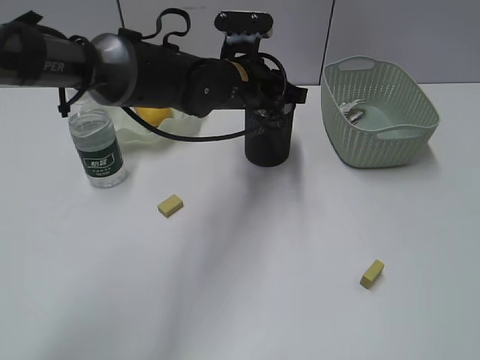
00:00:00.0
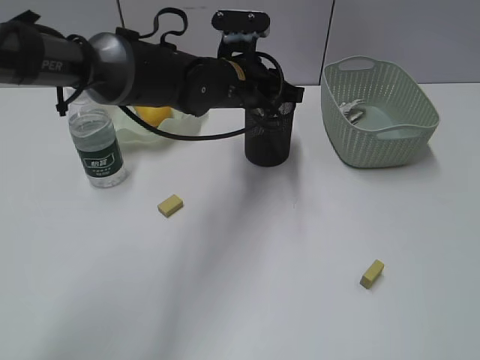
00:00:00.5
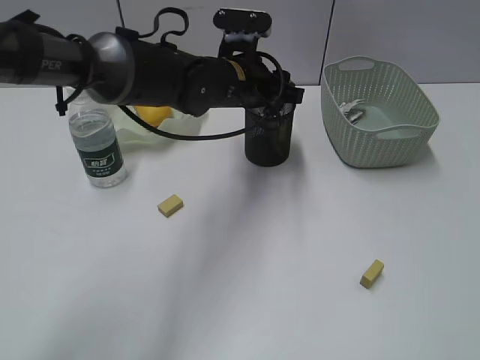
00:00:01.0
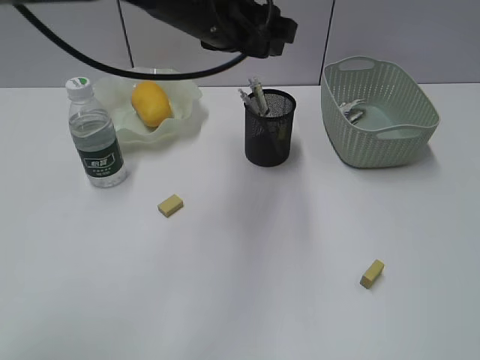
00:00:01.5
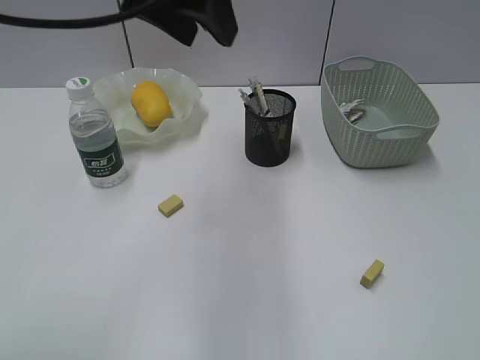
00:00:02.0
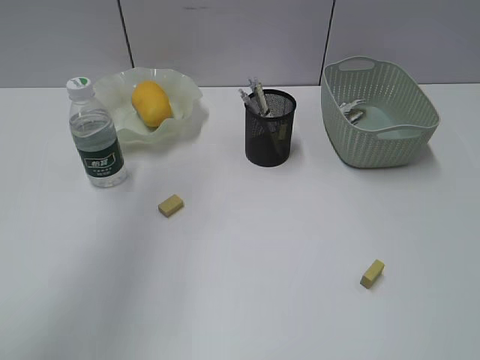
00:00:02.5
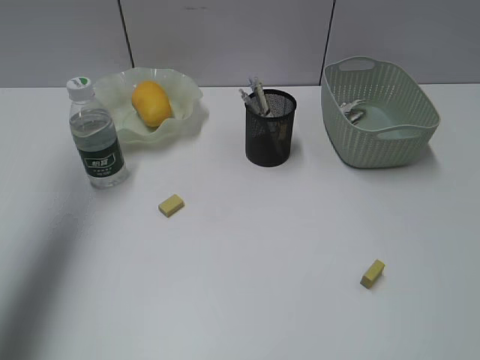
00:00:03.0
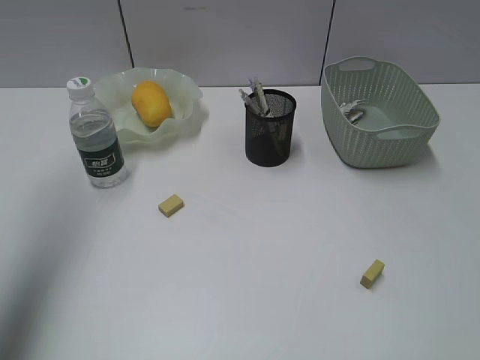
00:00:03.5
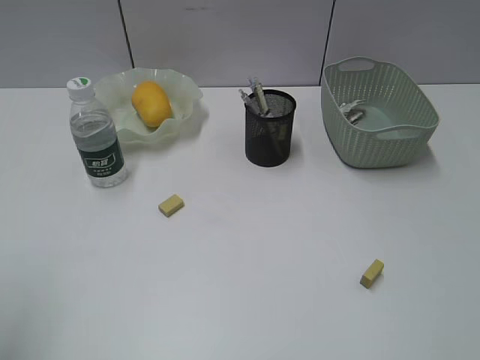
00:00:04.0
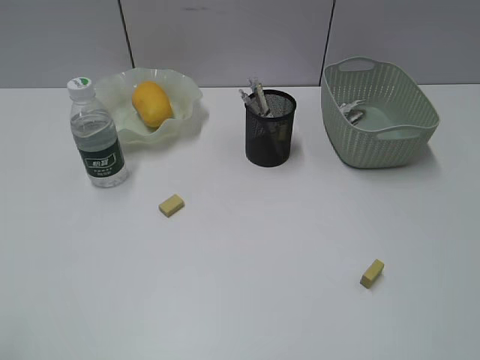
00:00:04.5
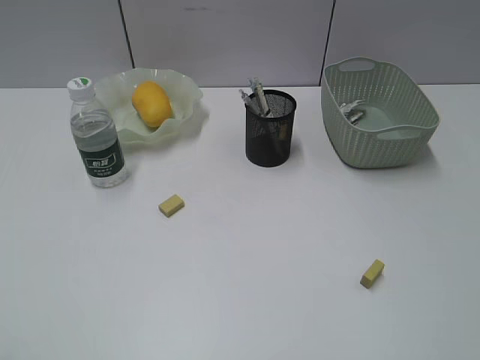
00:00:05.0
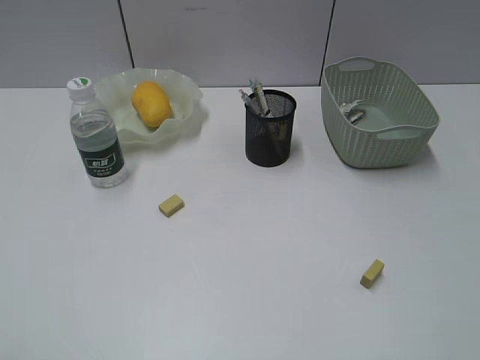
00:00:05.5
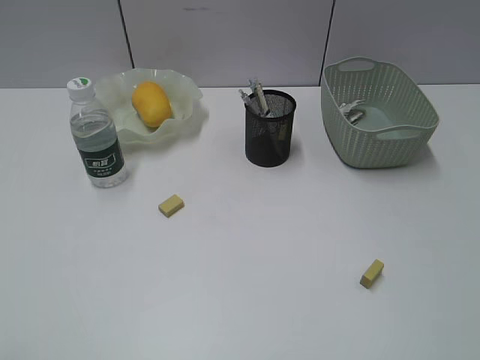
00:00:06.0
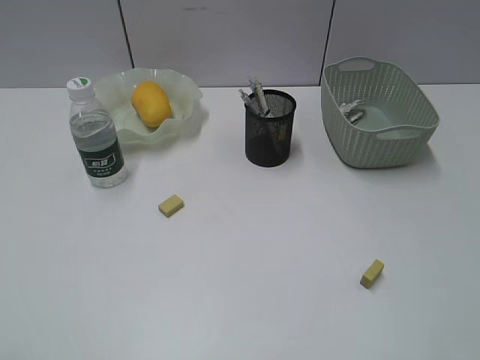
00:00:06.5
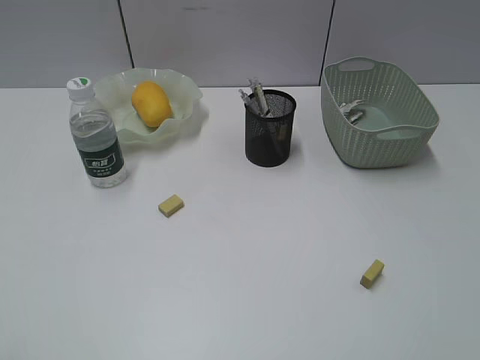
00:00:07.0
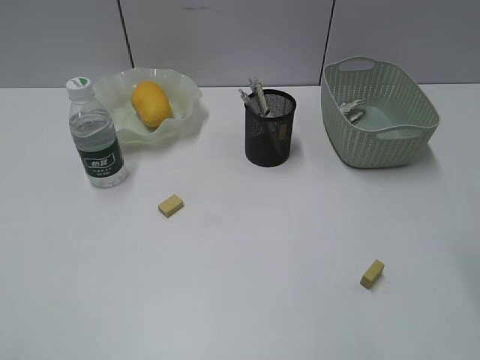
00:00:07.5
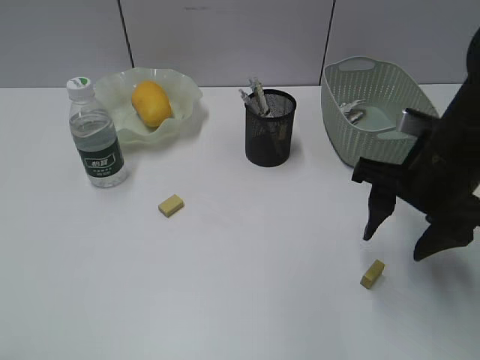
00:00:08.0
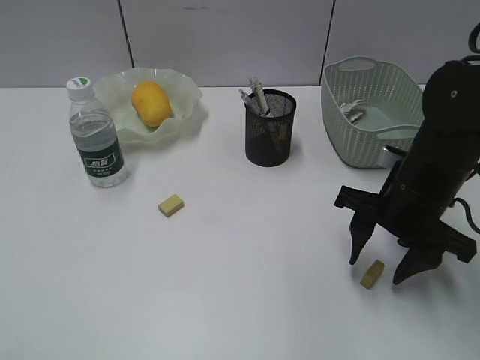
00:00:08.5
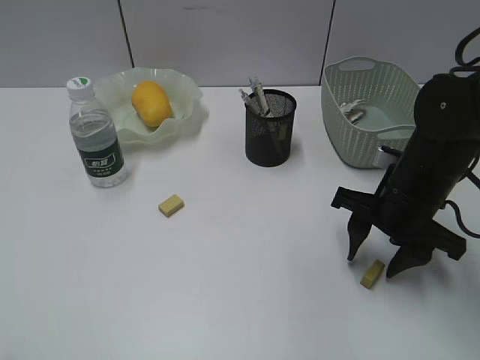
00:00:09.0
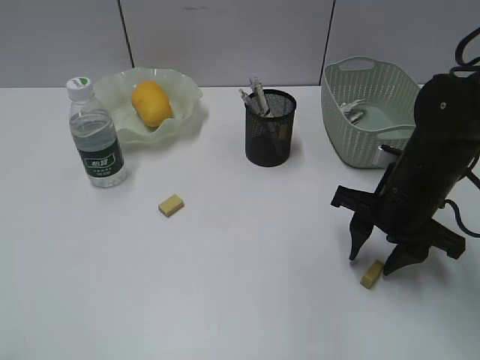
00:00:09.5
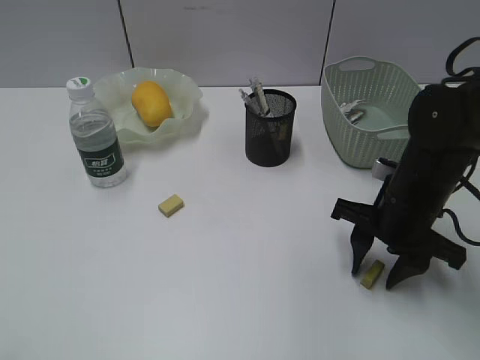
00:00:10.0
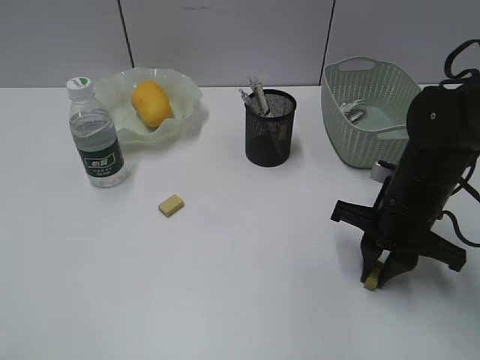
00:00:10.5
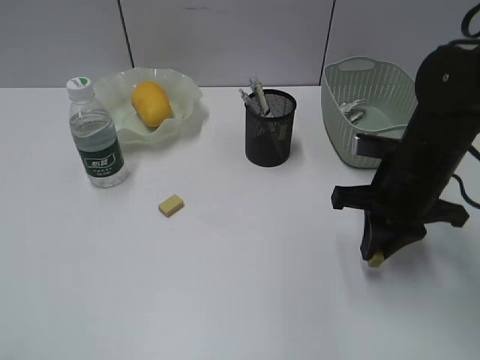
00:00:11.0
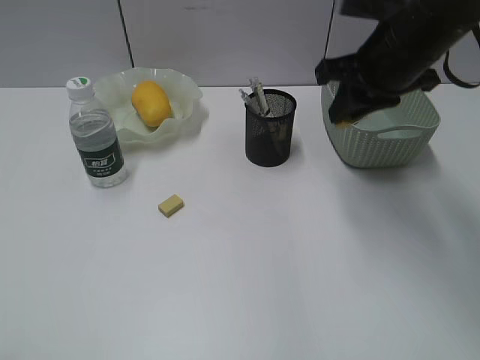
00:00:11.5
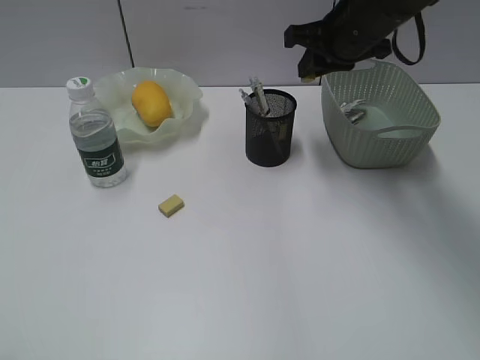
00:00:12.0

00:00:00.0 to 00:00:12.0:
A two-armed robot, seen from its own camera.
Step, 00:00:01.5 to 00:00:10.5: Grasp the eraser with right gripper.
00:00:00.0 to 00:00:02.0: The left gripper moves upward and backward, roughly 20 cm, and opens up.
00:00:02.0 to 00:00:04.0: The left gripper moves to the left and backward, approximately 30 cm.
00:00:06.0 to 00:00:08.0: The right gripper travels forward by about 25 cm.
00:00:08.0 to 00:00:10.0: The right gripper goes roughly 10 cm downward.
00:00:10.0 to 00:00:12.0: The right gripper heads forward and upward, covering roughly 20 cm, and closes its fingers.

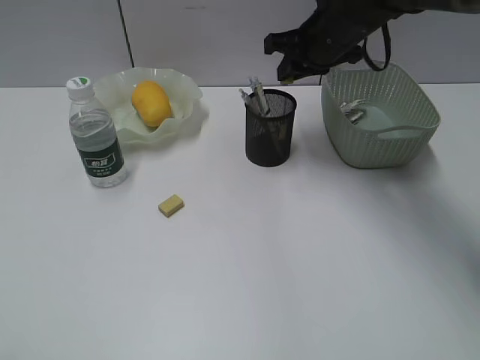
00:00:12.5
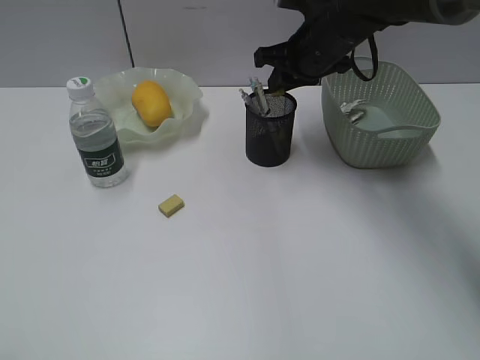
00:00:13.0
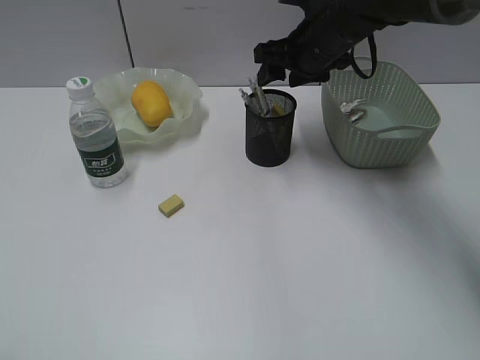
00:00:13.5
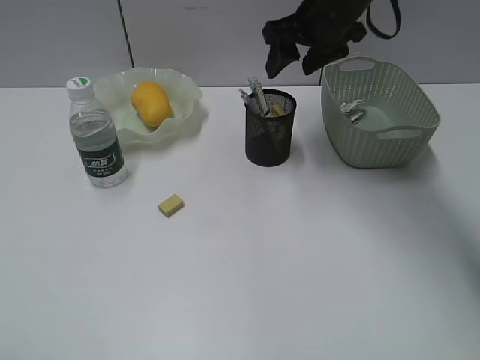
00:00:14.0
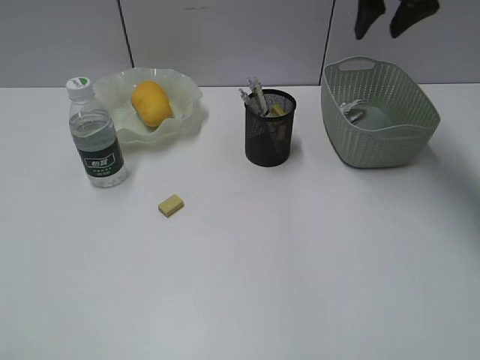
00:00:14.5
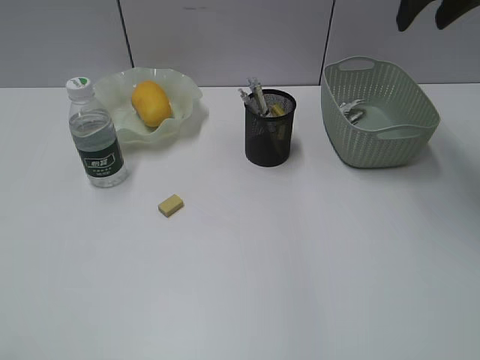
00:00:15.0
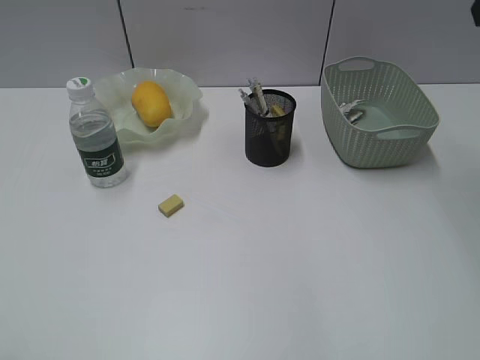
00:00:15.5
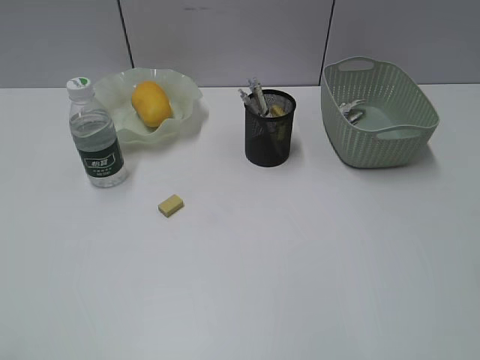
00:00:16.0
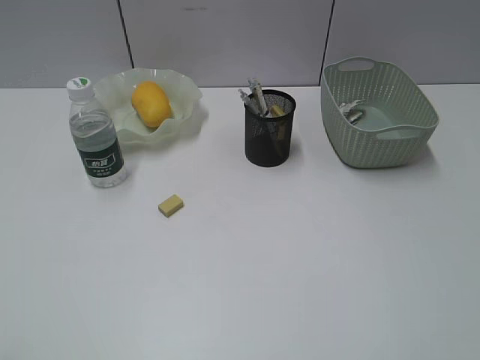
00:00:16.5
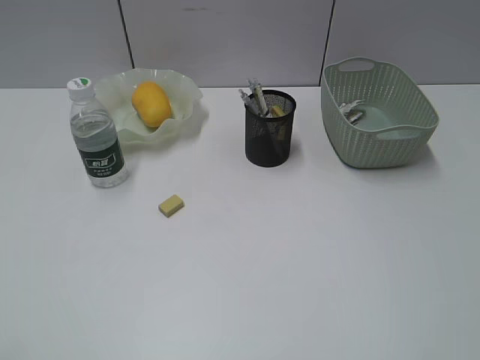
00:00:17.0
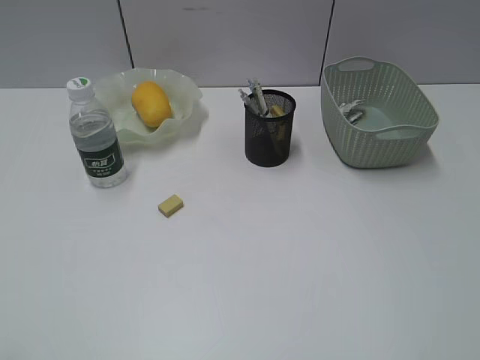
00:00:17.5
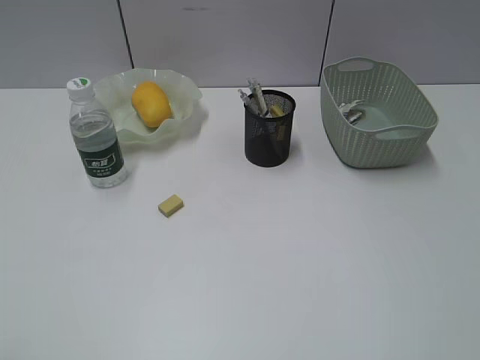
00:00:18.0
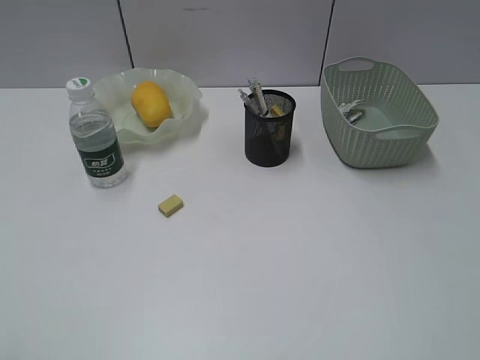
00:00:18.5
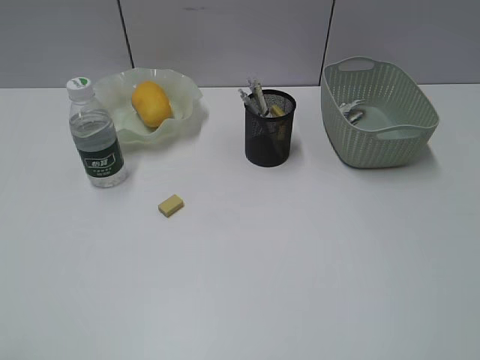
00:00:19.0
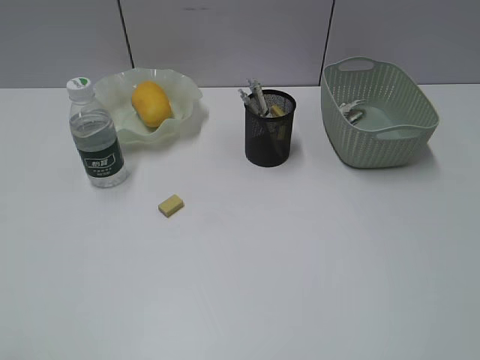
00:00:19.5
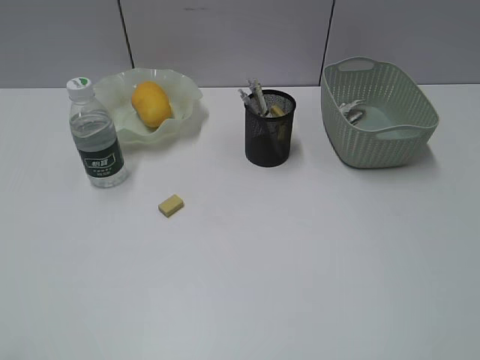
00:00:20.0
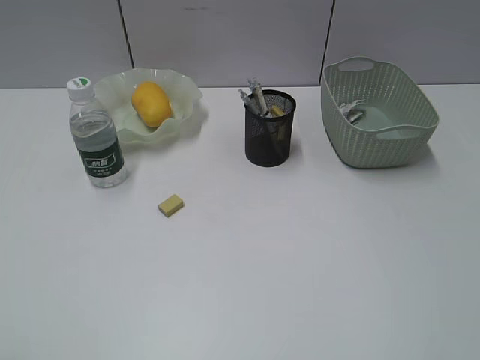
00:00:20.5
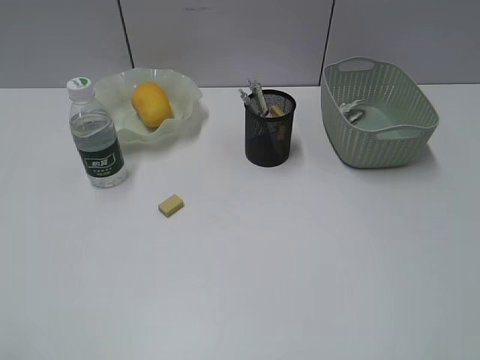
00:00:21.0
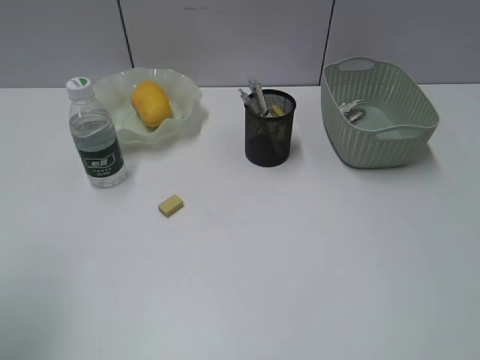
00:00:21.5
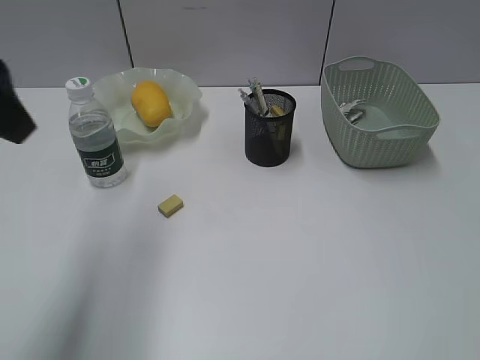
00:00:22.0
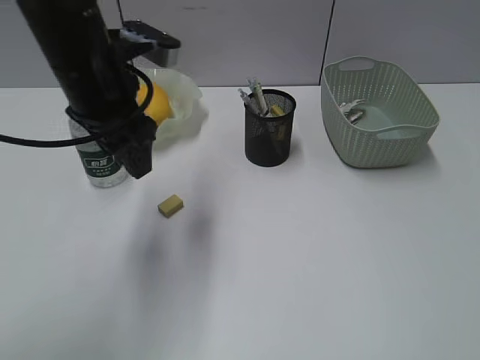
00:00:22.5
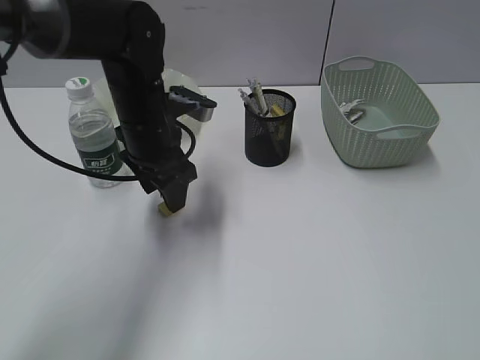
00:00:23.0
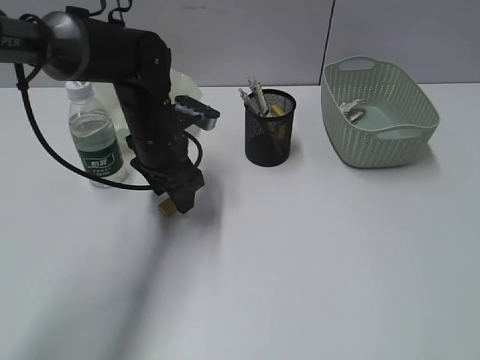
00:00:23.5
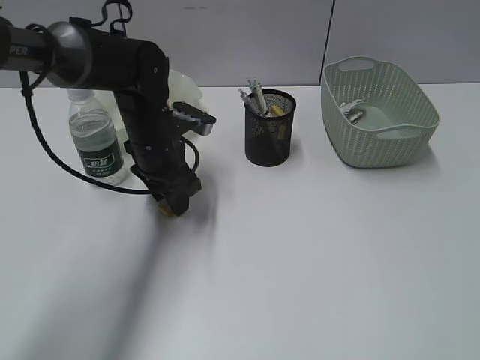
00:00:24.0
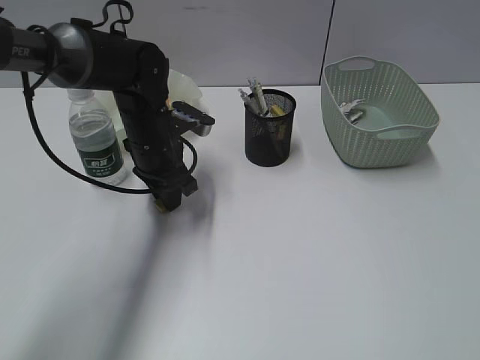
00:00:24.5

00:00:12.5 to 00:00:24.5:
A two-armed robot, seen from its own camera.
00:00:12.5 to 00:00:14.5: The right gripper travels upward and to the right by some 10 cm, and opens up.
00:00:14.5 to 00:00:16.5: The right gripper is displaced backward by roughly 40 cm.
00:00:20.5 to 00:00:22.5: The left gripper goes some 35 cm forward and to the right.
00:00:22.5 to 00:00:24.5: The left gripper heads downward and forward, covering approximately 15 cm, and closes.

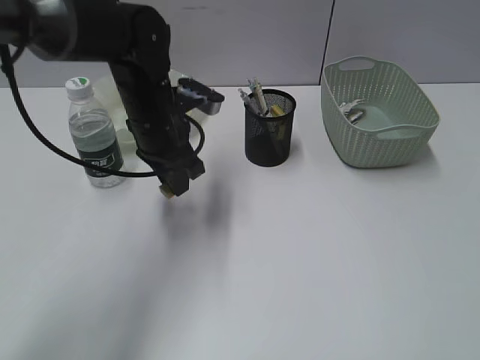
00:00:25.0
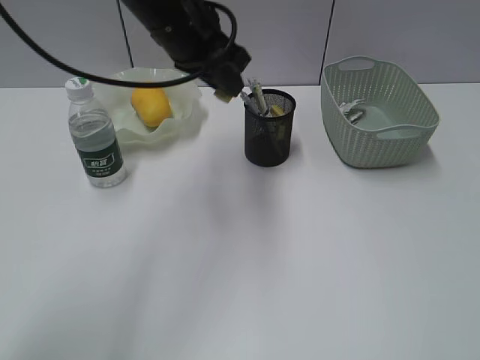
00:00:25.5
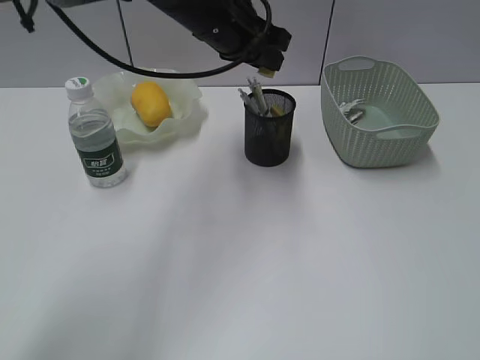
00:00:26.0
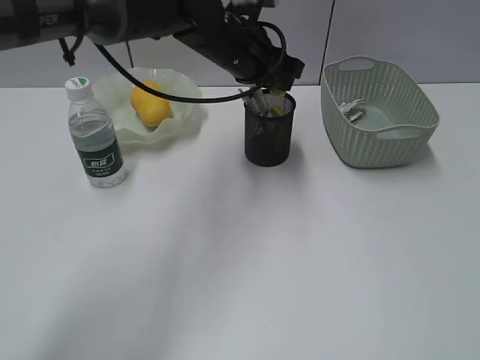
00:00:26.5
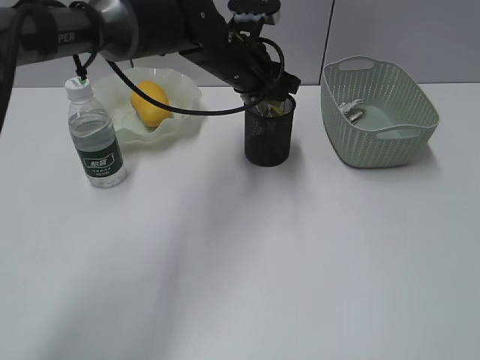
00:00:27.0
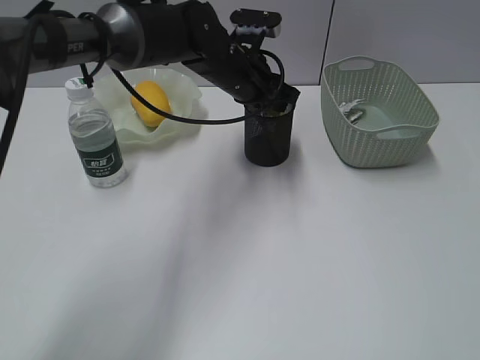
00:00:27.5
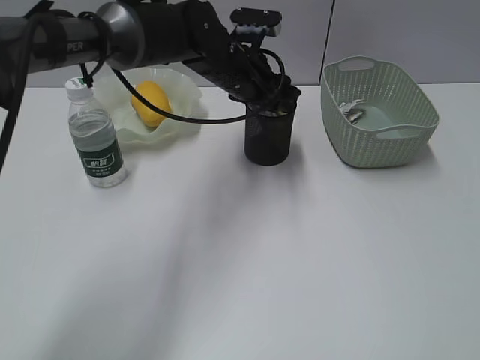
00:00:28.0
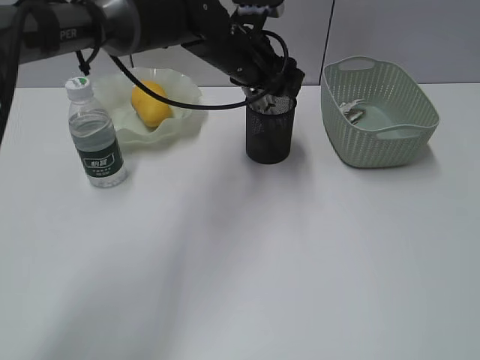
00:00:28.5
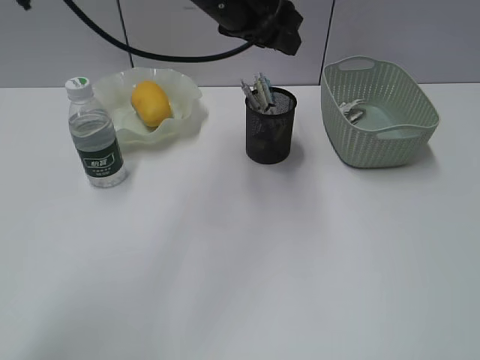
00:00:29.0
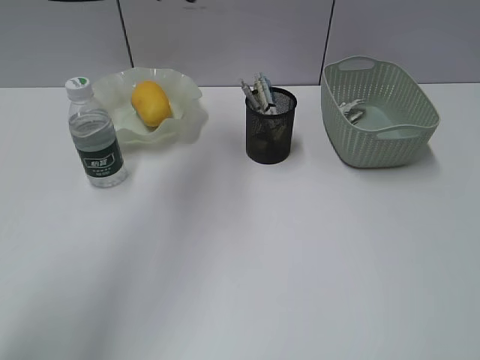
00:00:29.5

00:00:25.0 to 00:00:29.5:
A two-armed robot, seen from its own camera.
Step, 00:00:25.0 to 00:00:28.0: Place the eraser in pen holder with left gripper.
00:00:25.0 to 00:00:27.0: The left gripper travels to the right and forward by approximately 10 cm.
00:00:27.0 to 00:00:29.5: The left gripper travels upward and to the left by roughly 20 cm, and opens.
